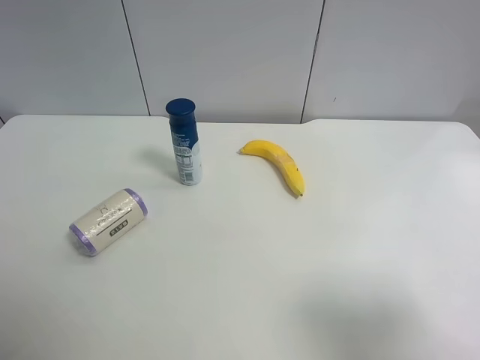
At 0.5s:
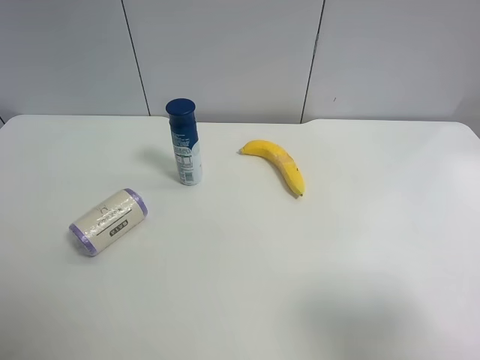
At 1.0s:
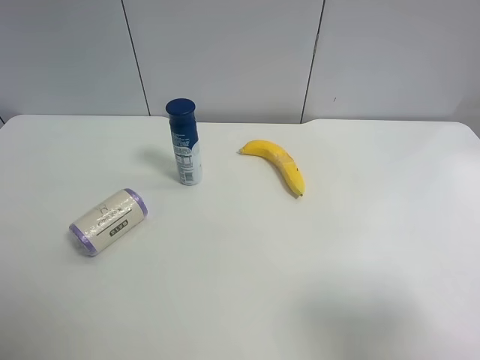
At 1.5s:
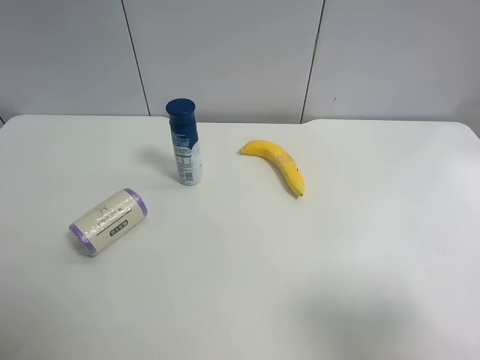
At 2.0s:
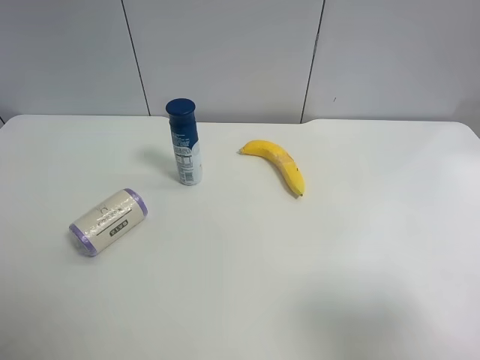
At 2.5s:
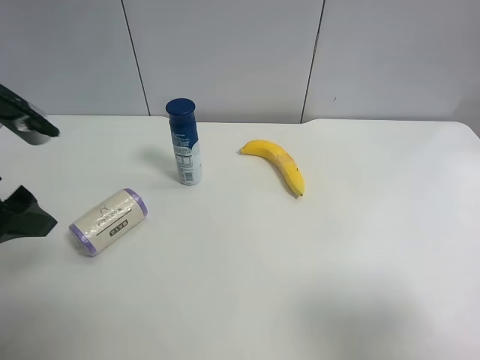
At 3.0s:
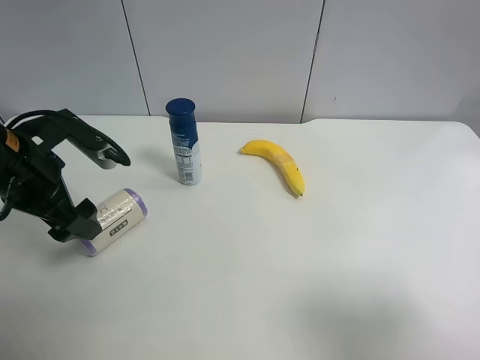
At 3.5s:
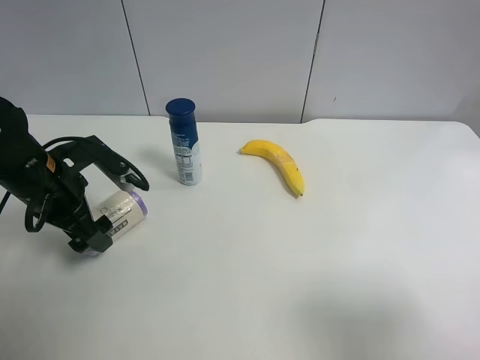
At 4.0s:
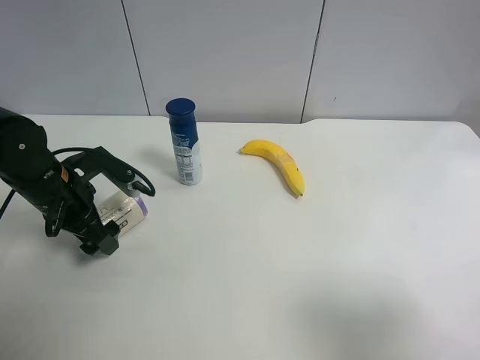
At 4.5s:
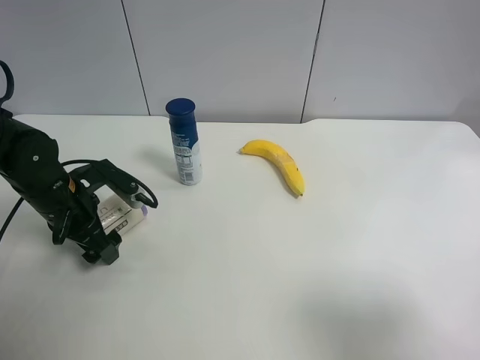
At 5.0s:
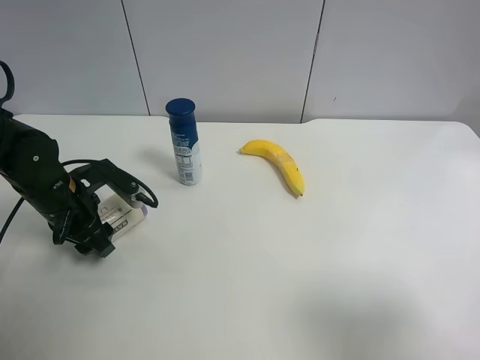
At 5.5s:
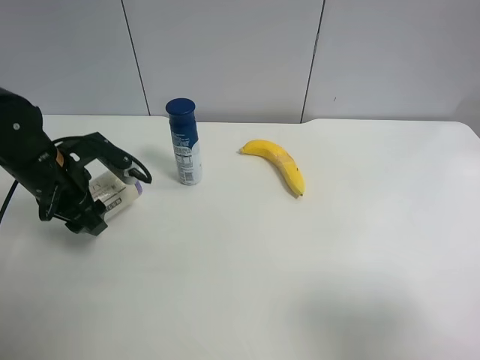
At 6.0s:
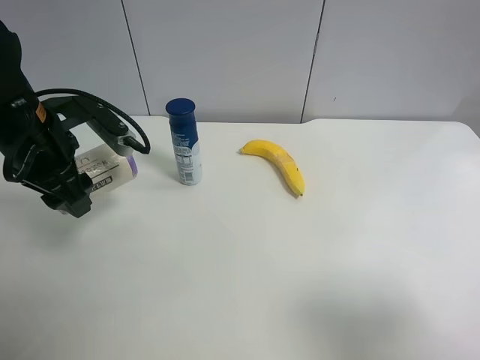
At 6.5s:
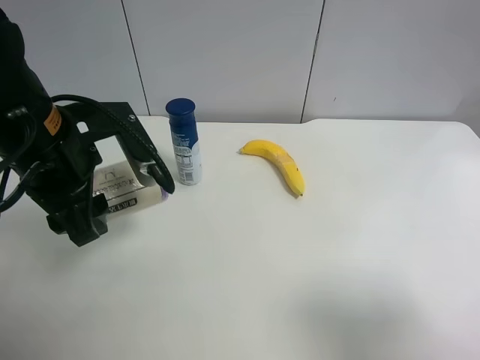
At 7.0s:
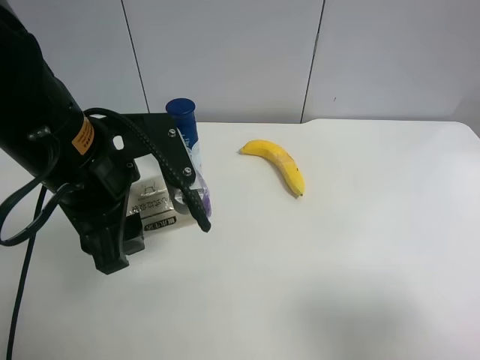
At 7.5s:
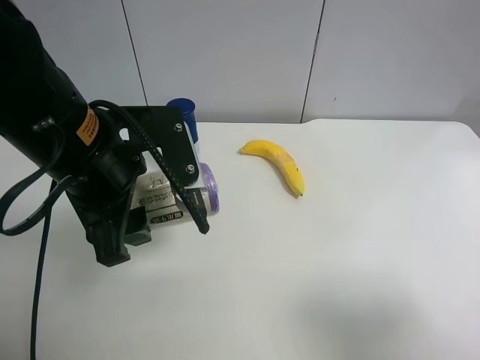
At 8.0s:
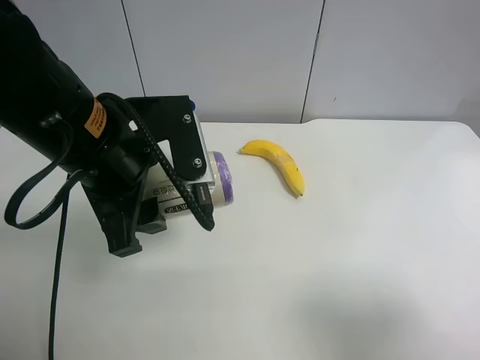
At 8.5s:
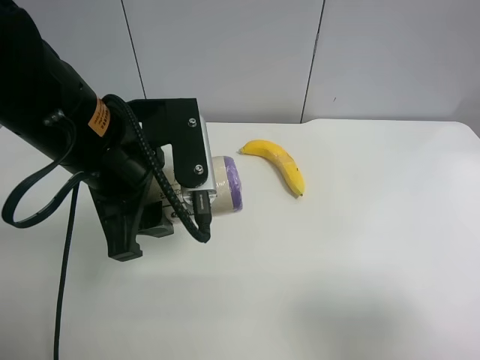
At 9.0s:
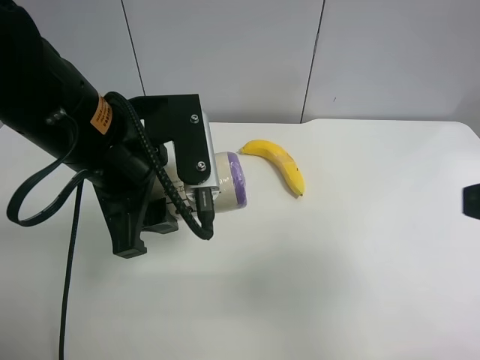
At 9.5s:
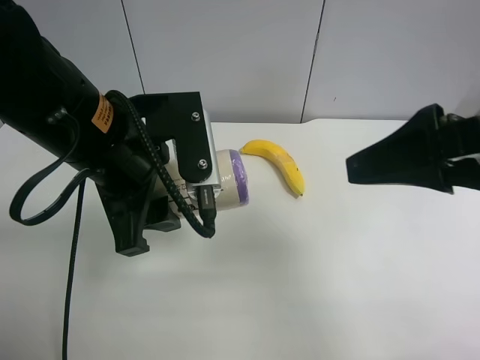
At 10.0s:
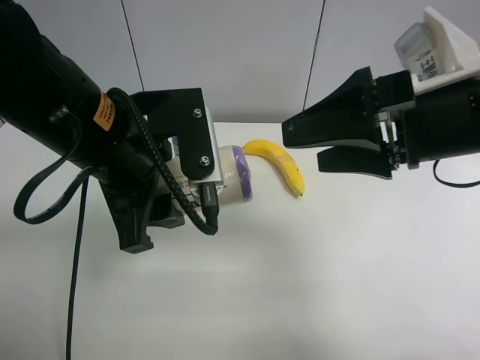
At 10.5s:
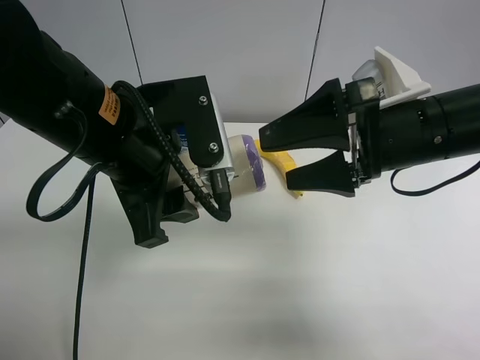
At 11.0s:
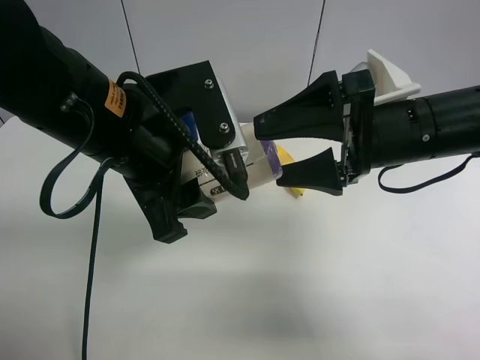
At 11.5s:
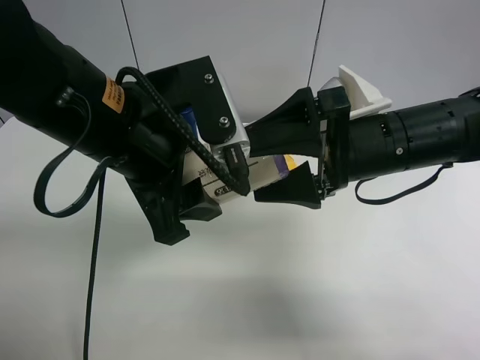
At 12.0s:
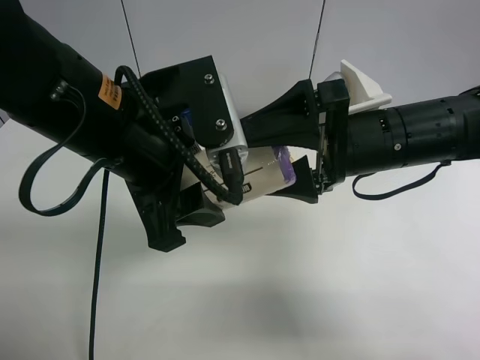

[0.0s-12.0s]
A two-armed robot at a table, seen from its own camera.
Task of the whole recording: use the left gripper to pick up the item and transfer it from the left gripper to the right gripper.
2.0s to 4.0s: The left gripper heads forward and downward, covering some 30 cm.
4.0s to 6.0s: The left gripper goes some 10 cm upward, and closes up.
6.0s to 8.0s: The left gripper moves to the right and backward, some 15 cm.
8.0s to 10.0s: The right gripper travels forward and to the left by approximately 20 cm.
10.0s to 12.0s: The right gripper ends up some 5 cm from where it was.

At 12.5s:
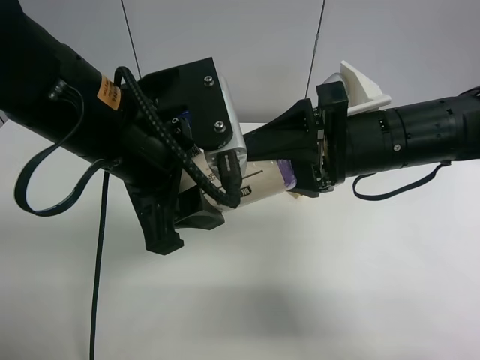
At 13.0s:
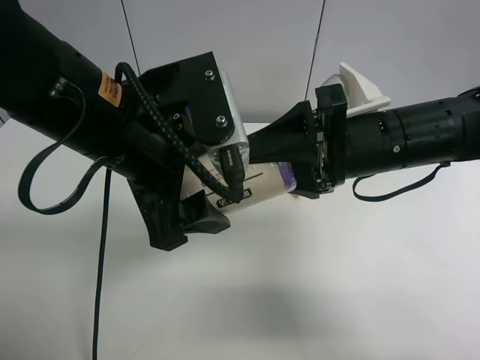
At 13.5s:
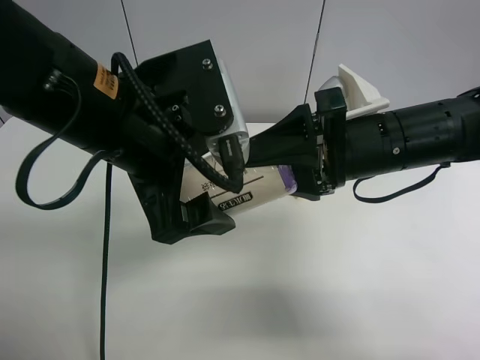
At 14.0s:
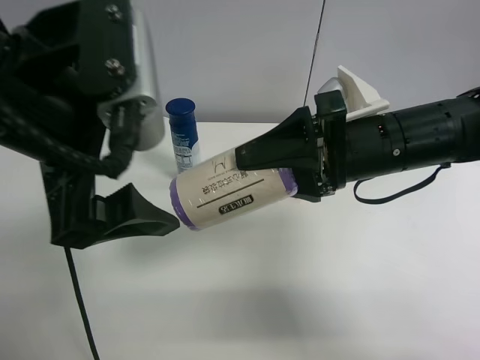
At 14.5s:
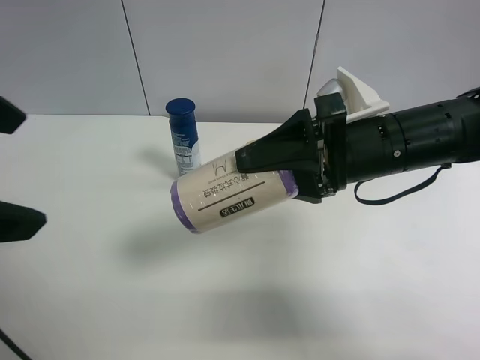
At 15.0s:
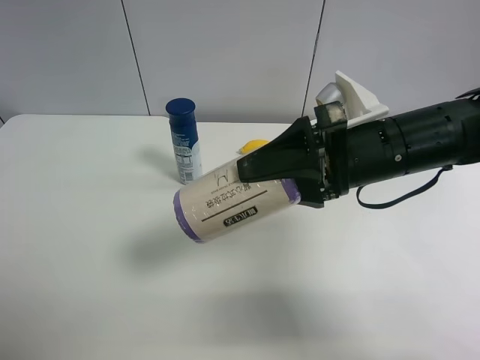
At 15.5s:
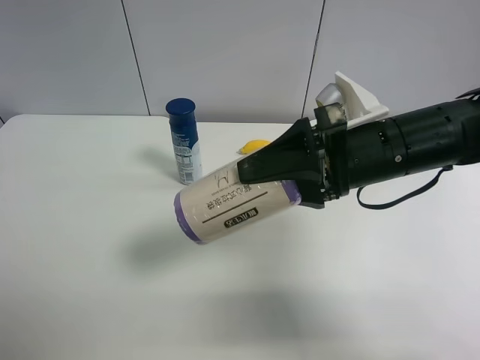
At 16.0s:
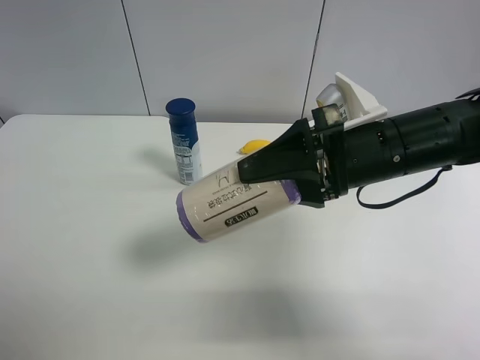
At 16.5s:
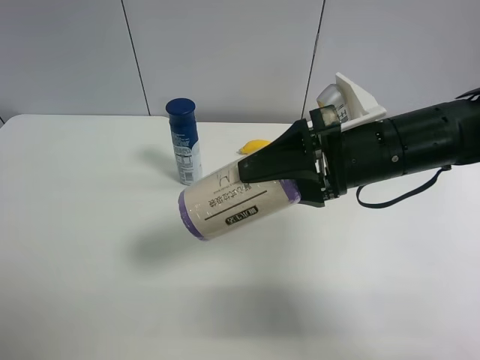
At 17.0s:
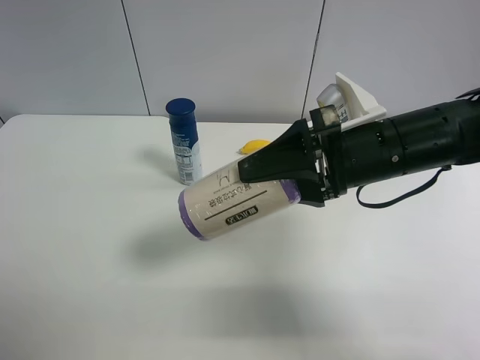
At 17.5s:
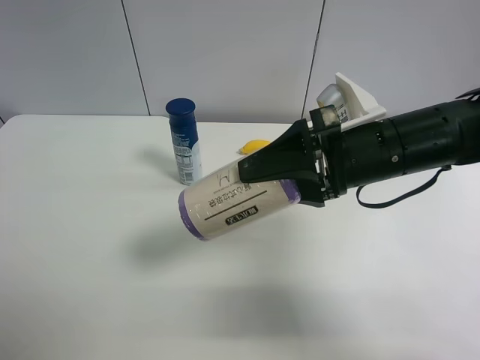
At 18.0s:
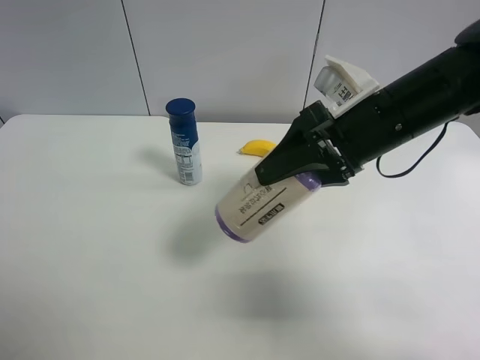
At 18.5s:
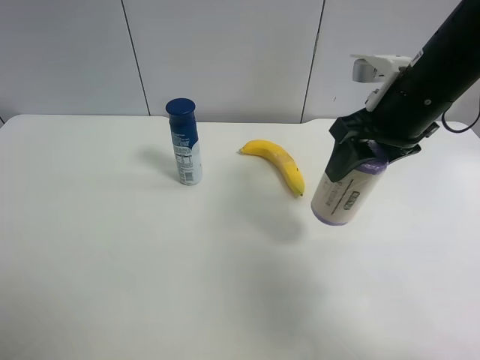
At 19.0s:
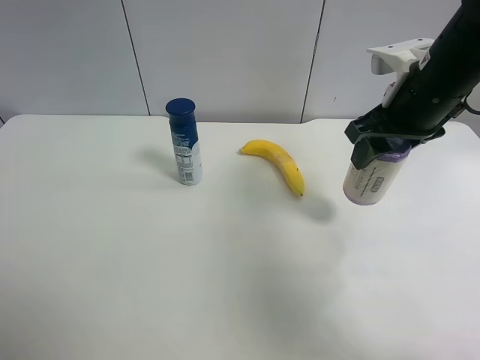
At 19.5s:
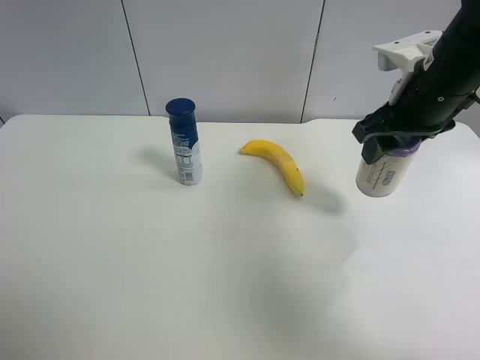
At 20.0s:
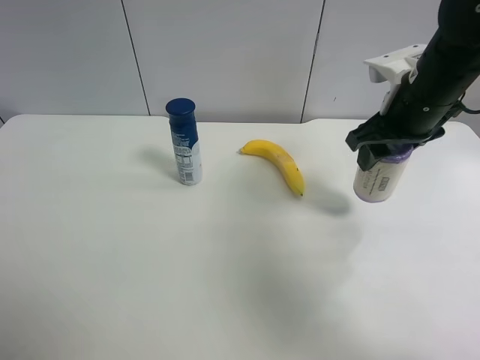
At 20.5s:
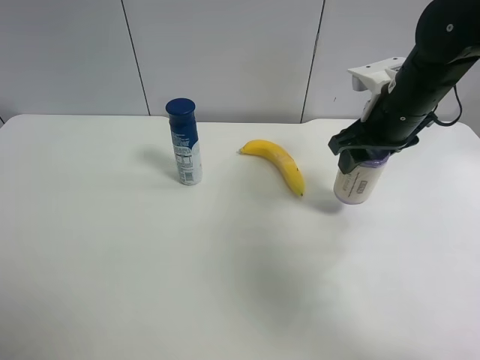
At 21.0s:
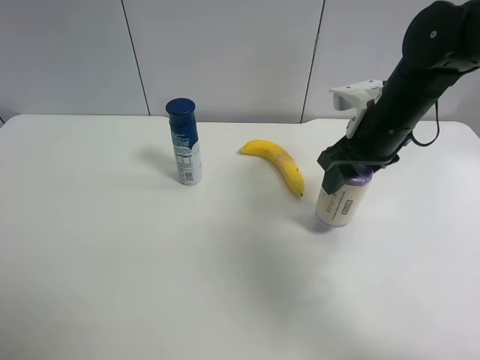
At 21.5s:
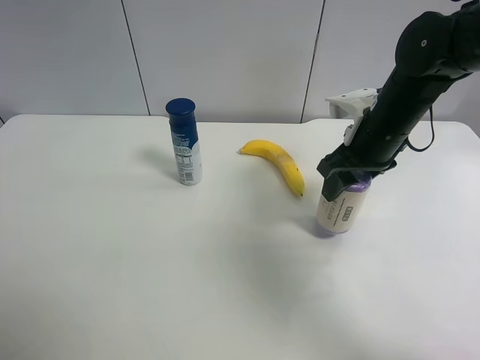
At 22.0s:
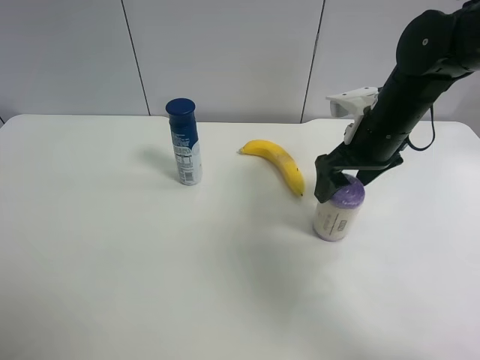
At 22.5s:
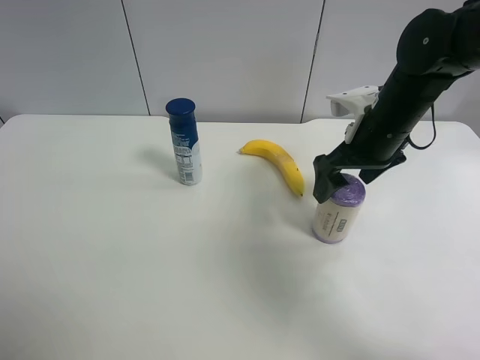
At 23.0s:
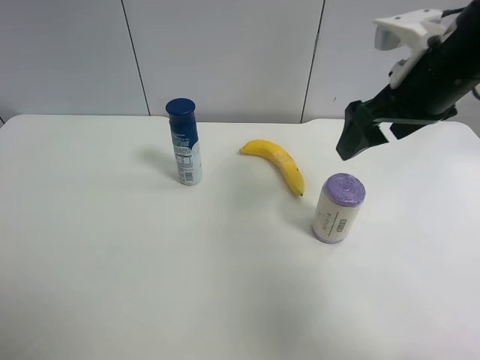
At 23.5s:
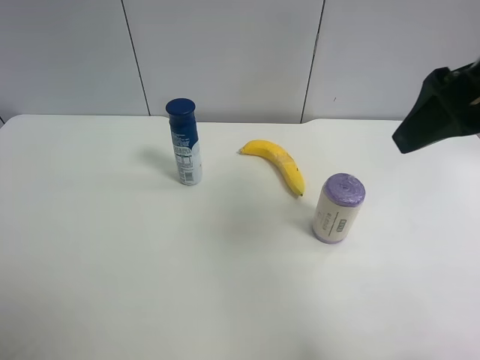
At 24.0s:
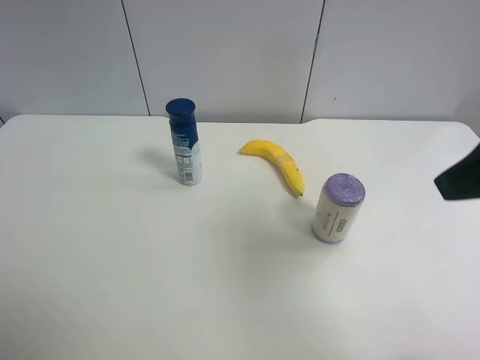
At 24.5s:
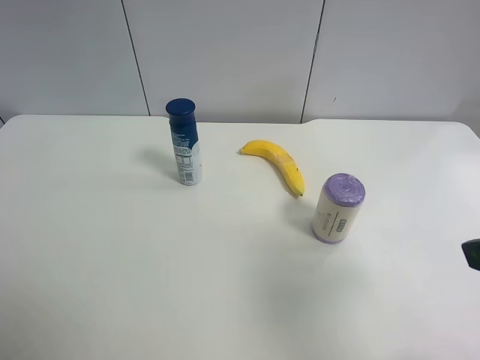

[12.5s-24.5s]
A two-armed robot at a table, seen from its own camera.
Task of the whole recording: use the left gripper to pick up the item and transfer it from the left gripper to the right gripper.
12.5s to 14.5s: The left gripper moves to the left, upward and backward, approximately 15 cm, and opens its fingers.
14.5s to 16.5s: The left gripper is displaced to the left, backward and downward by approximately 20 cm.
16.5s to 18.5s: The right gripper moves about 10 cm.
18.5s to 20.5s: The right gripper changes place by some 5 cm.
20.5s to 22.5s: The right gripper opens its fingers.
22.5s to 24.5s: The right gripper heads backward, covering approximately 25 cm.
